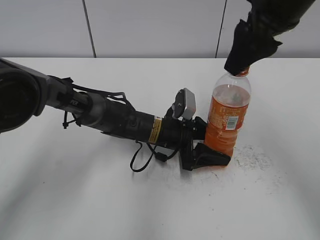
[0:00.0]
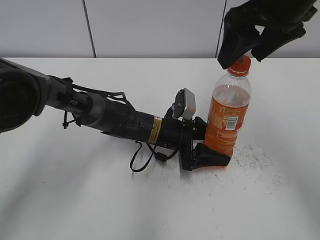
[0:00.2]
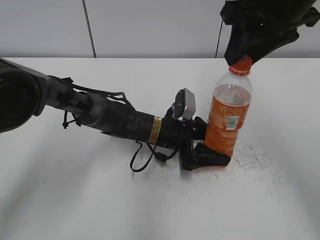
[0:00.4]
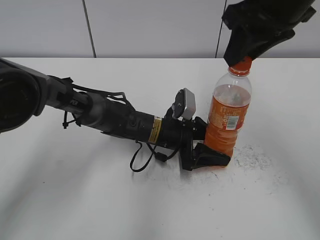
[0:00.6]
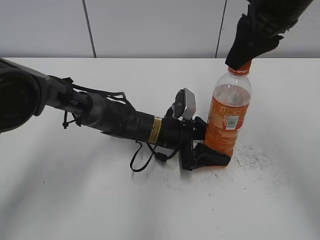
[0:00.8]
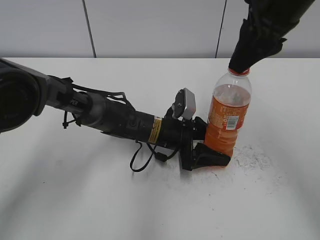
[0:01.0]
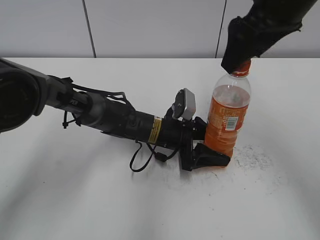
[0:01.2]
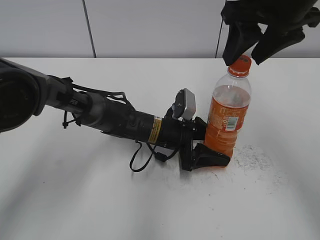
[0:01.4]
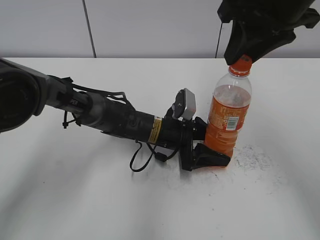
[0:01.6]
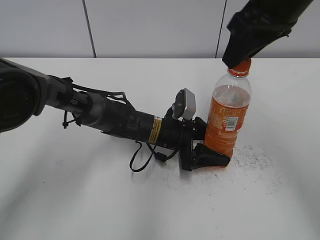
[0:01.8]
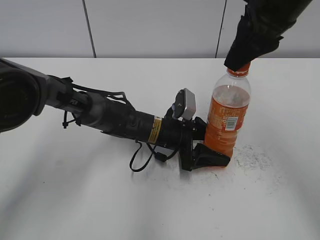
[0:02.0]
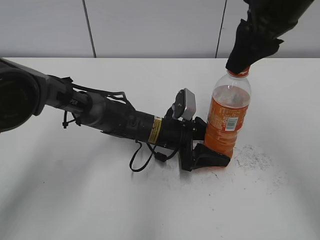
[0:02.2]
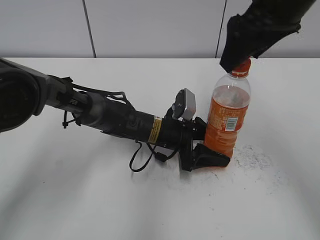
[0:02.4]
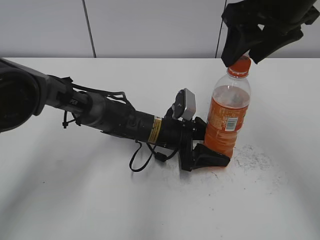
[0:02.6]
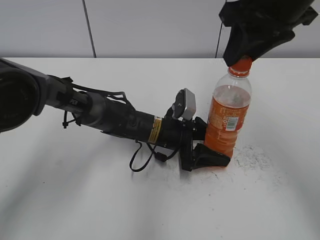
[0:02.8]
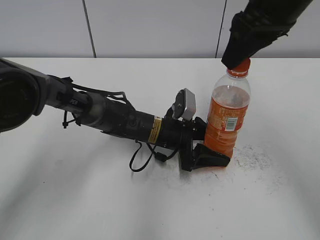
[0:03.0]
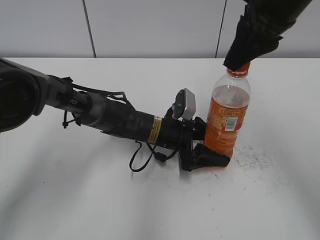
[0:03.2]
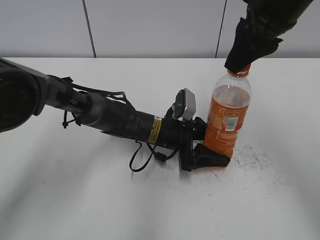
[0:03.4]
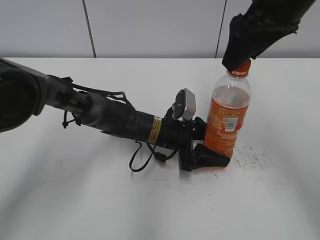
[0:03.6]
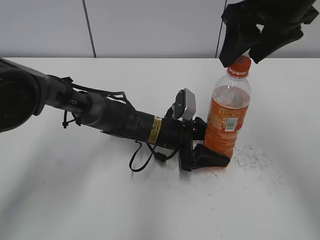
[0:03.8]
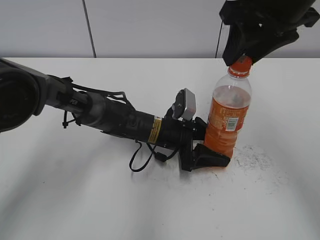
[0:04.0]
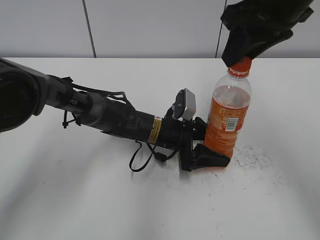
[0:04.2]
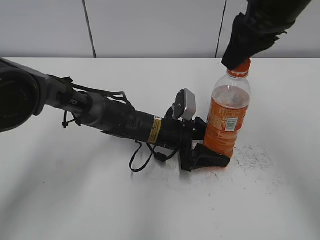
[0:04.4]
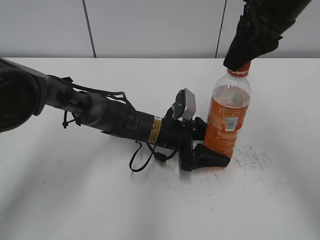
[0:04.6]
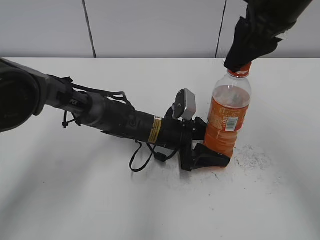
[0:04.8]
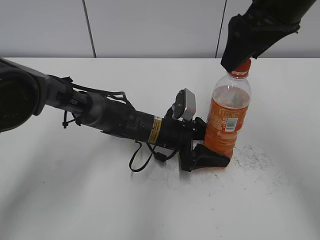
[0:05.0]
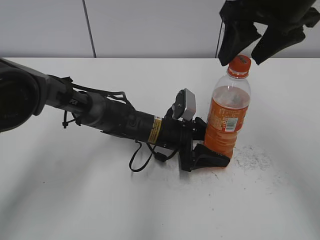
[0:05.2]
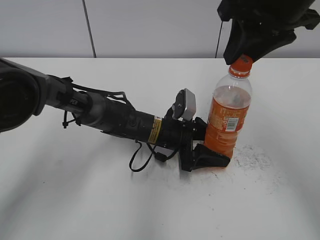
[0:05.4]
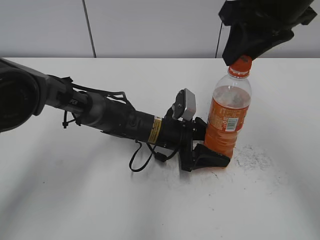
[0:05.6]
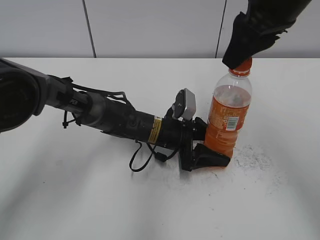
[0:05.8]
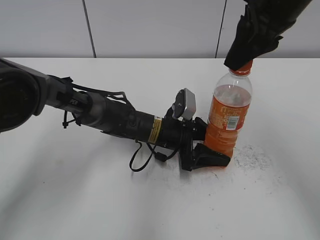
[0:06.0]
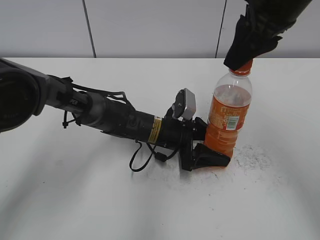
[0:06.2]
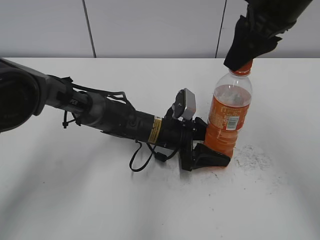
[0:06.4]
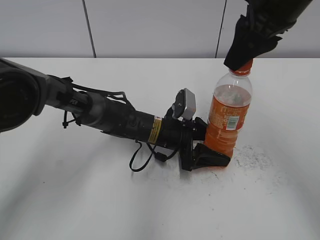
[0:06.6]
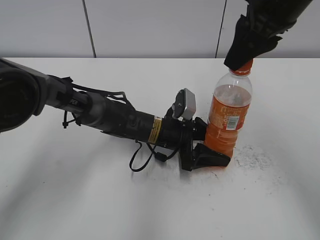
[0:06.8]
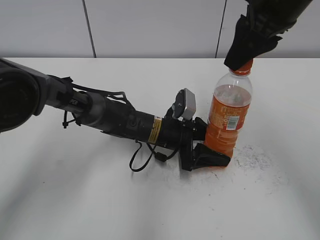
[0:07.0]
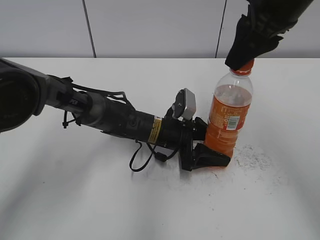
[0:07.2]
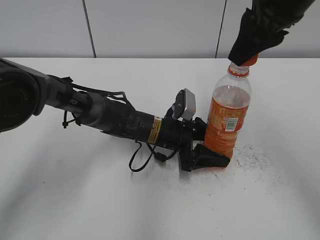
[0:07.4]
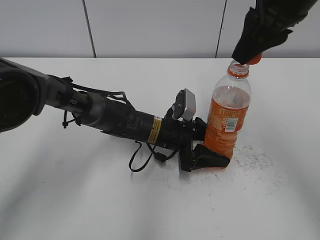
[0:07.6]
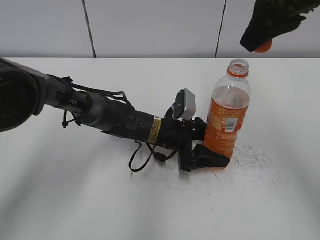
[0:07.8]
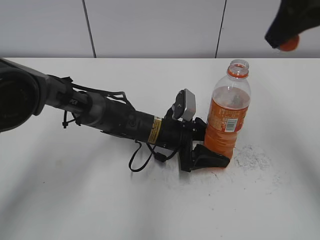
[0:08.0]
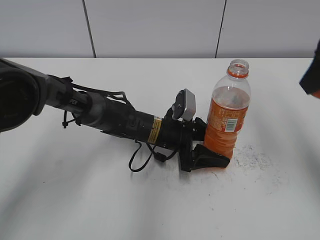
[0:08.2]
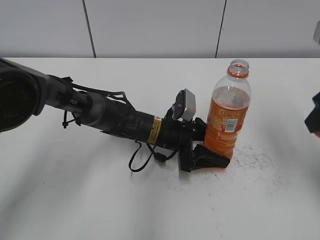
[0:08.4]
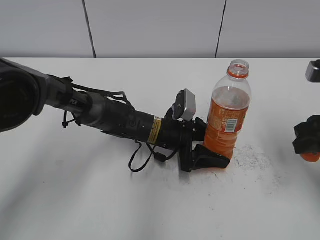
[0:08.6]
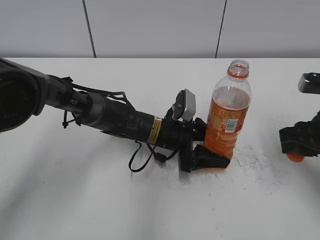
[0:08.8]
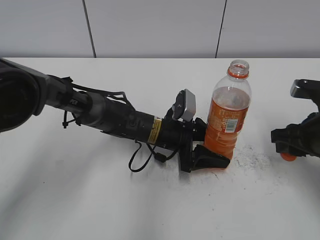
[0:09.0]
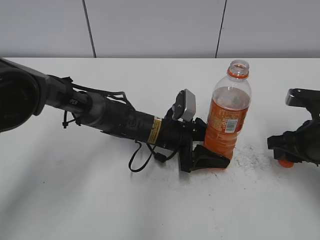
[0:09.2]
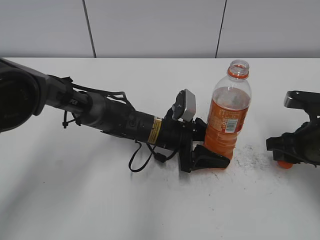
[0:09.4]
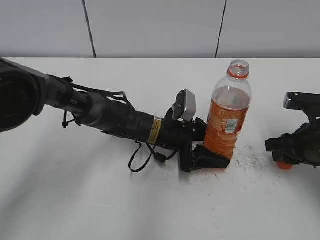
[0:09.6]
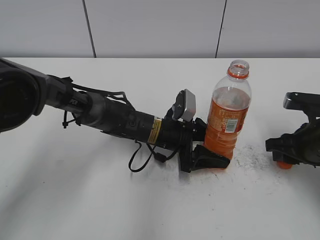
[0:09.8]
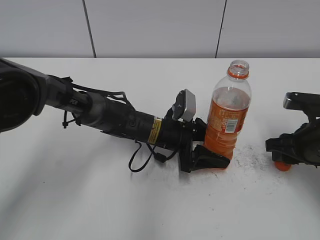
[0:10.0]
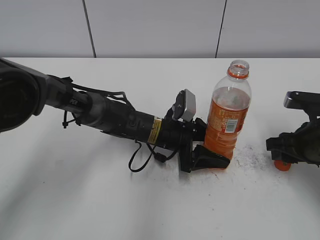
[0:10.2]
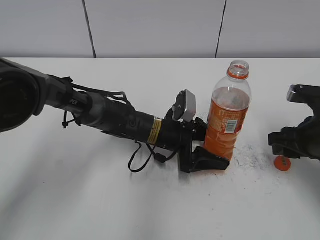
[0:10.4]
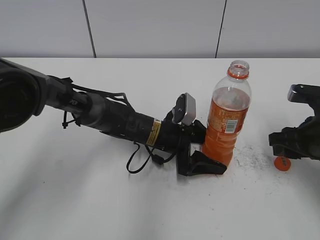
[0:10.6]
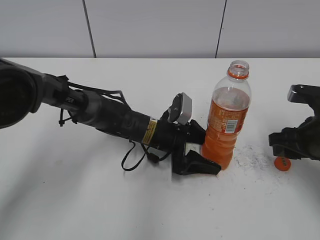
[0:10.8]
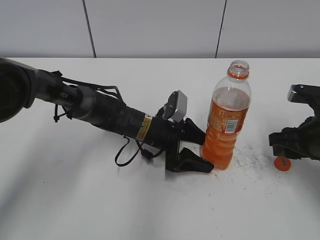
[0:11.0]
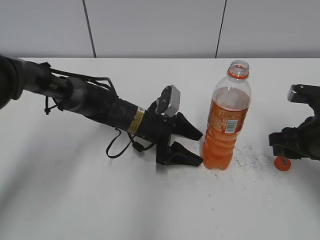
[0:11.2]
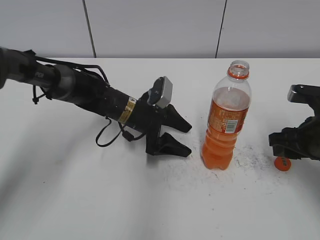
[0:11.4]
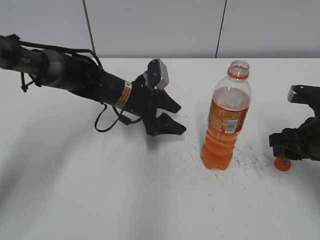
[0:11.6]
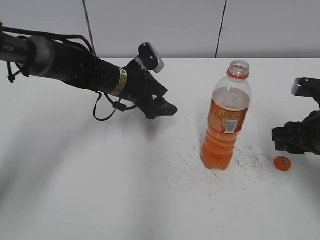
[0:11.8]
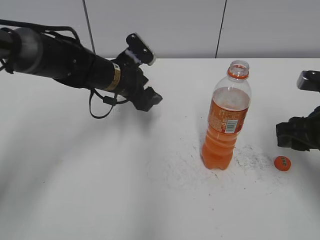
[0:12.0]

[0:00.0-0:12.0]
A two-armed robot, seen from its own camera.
Step, 0:00.0 to 0:07.6: Twist the bottle cap with the right hand.
0:00.0 to 0:01.6: The right gripper closes.
0:01.6 to 0:03.0: The right gripper opens, then closes again.
0:04.4 to 0:06.0: The right gripper opens, then closes again.
0:06.0 to 0:07.6: The grippers move only a little.
0:07.6 to 0:09.0: The right gripper is displaced downward and to the right by approximately 25 cm.
0:09.0 to 0:10.4: The grippers stay close to where they were, moving slightly.
0:10.4 to 0:12.0: The left gripper moves upward, to the left and forward, approximately 15 cm.

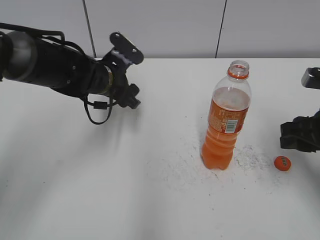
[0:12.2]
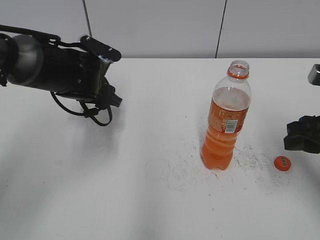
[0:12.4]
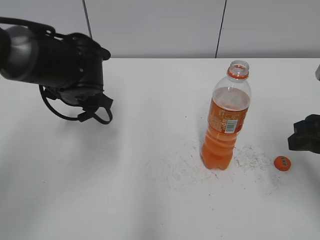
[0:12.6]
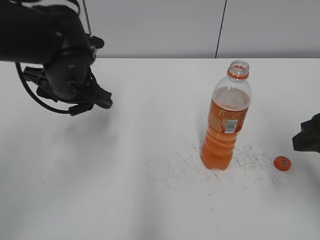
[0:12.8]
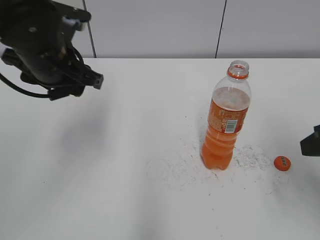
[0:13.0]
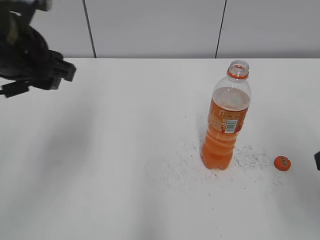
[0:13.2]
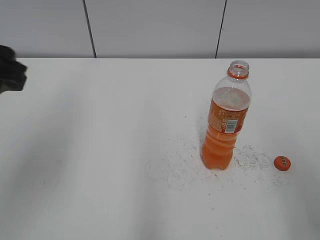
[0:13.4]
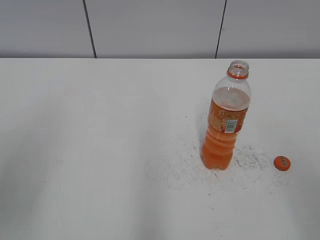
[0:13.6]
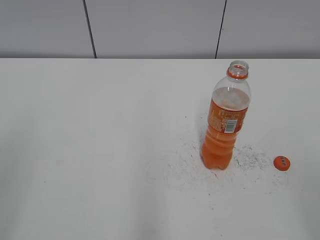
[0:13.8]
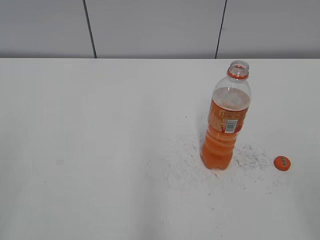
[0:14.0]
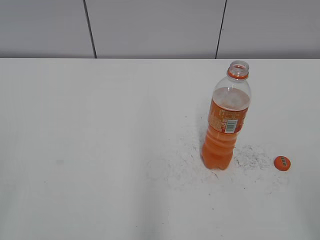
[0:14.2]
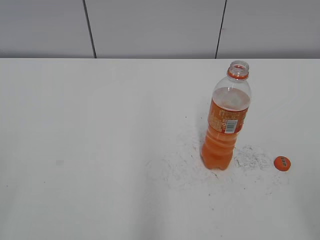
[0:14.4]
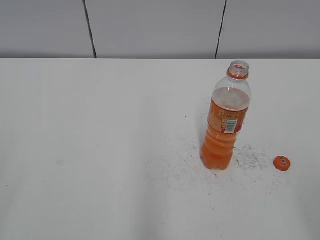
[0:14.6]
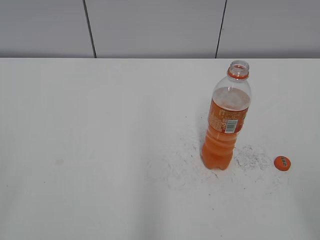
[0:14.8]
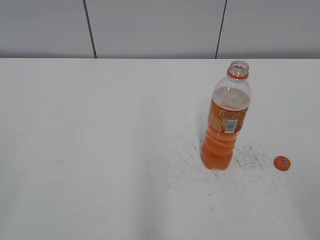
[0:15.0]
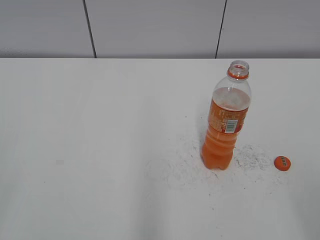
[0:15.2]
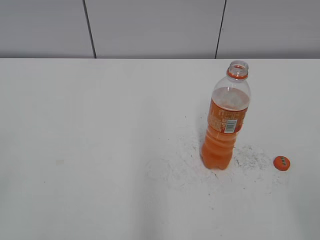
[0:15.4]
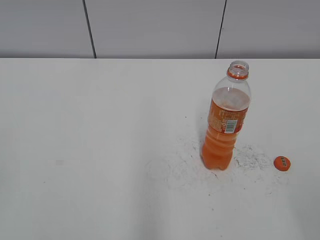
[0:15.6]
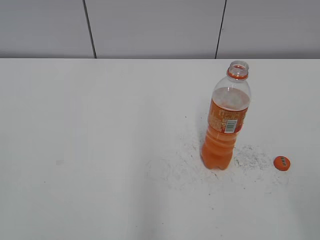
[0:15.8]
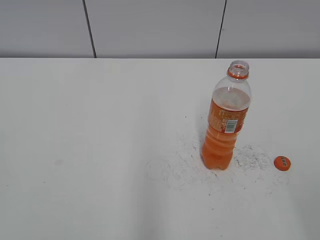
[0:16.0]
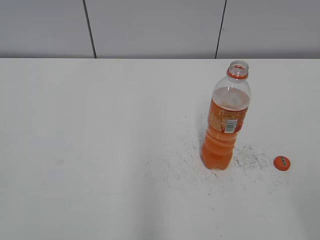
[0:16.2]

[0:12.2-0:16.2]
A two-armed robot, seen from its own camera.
0:12.2 to 0:13.6: The right gripper travels backward and upward by some 20 cm, while the left gripper is displaced backward, upward and to the left by some 35 cm, and closes.
0:13.6 to 0:14.8: The left gripper is displaced backward and to the left by approximately 15 cm.

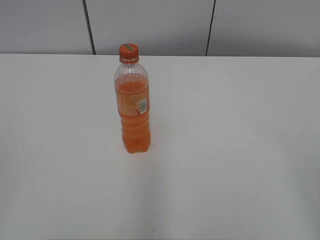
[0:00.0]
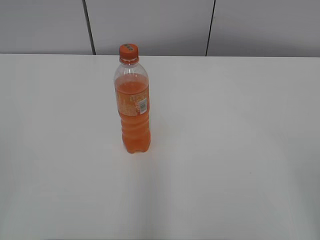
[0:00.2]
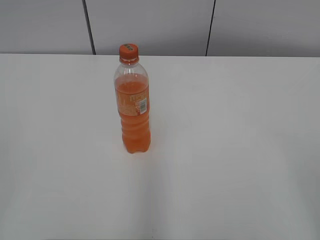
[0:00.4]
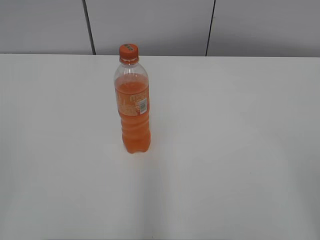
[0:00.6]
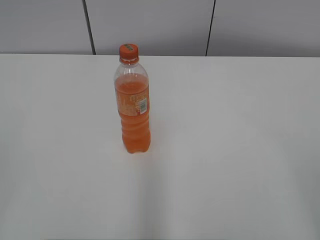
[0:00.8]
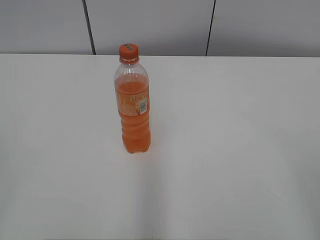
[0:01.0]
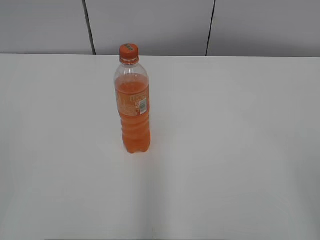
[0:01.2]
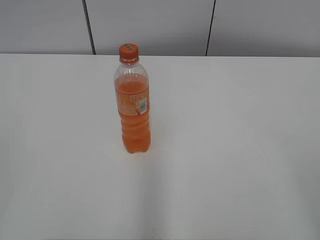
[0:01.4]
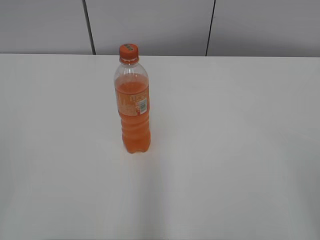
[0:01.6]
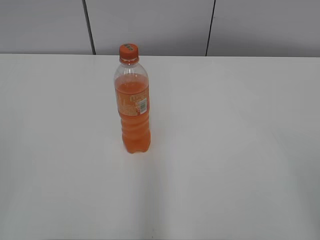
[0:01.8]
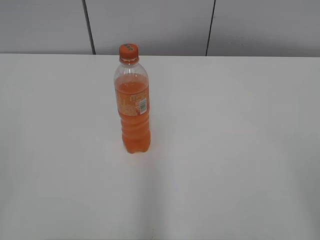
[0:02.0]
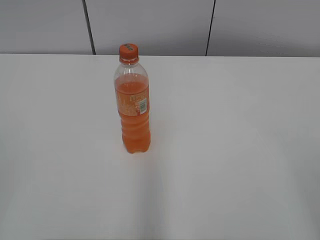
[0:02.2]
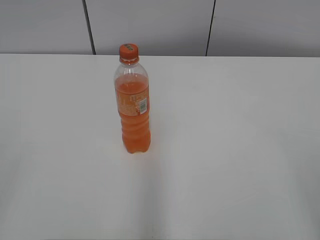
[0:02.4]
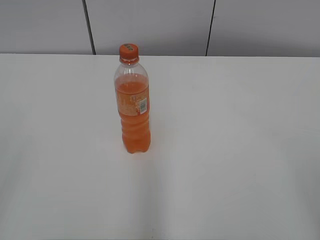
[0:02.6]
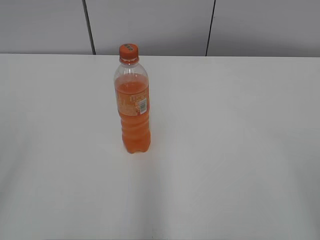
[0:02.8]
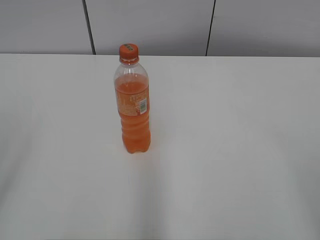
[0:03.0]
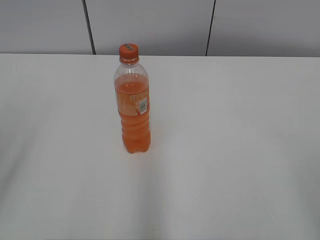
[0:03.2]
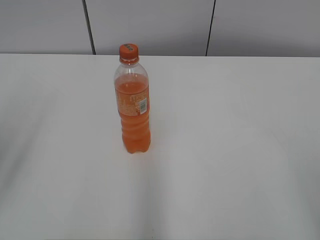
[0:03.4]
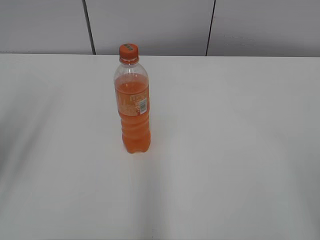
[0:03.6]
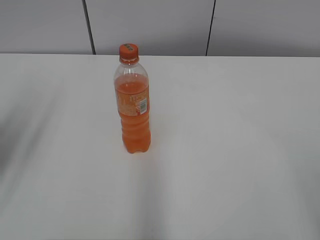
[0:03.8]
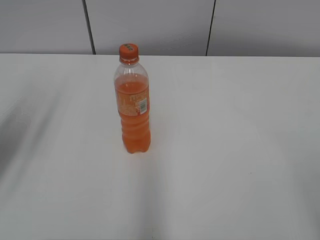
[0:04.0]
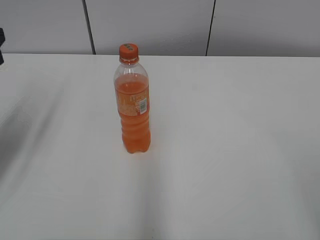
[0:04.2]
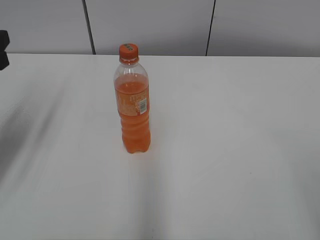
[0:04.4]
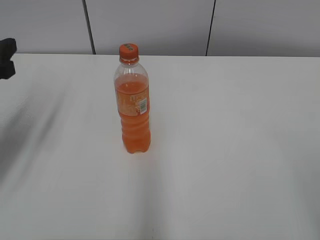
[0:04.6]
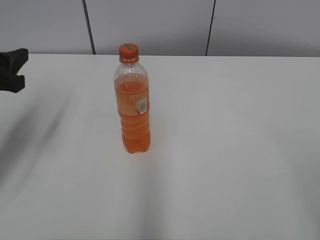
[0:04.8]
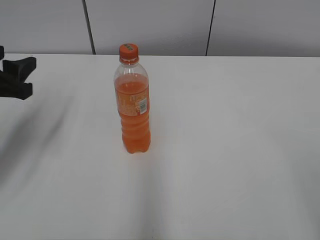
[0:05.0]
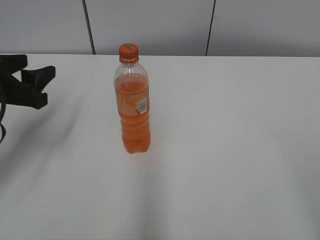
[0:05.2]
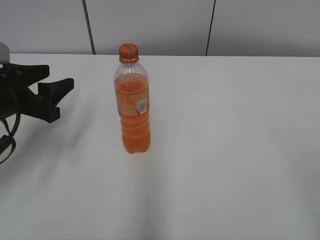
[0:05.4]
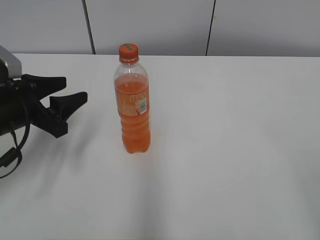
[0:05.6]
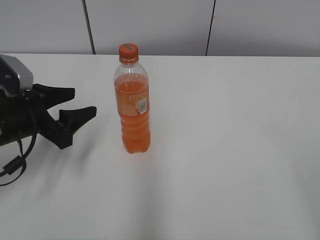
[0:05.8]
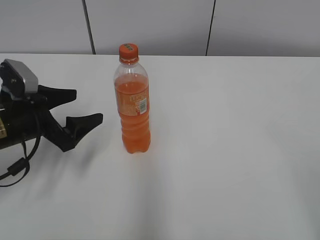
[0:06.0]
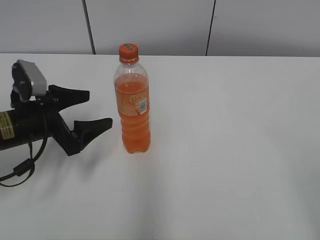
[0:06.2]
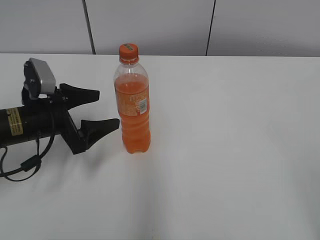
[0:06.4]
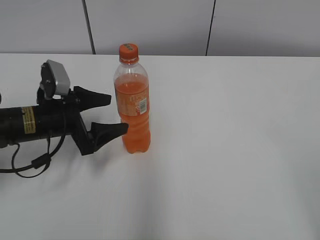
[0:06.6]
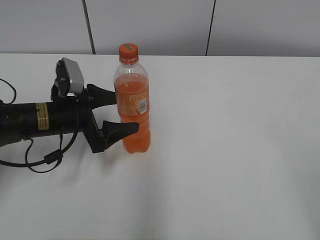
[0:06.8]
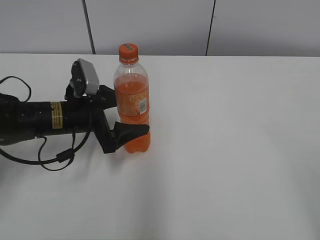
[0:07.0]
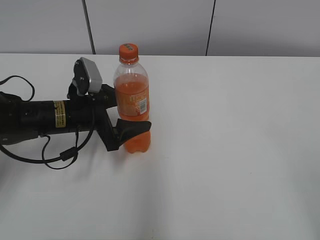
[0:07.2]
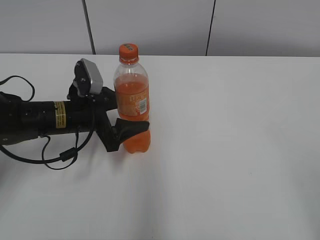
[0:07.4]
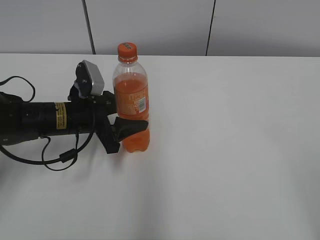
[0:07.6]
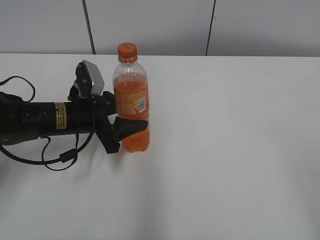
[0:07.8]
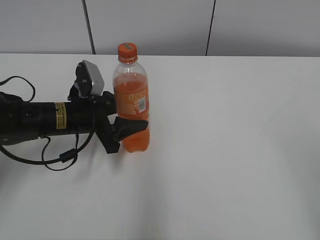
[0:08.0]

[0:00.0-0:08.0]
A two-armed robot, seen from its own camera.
Step, 0:00.0 to 0:07.6: Grasp the bottle and move it to the center of the table with the left gripper.
0:03.2 to 0:04.8: The left gripper moves forward and downward, approximately 20 cm.
0:04.8 to 0:06.4: The left gripper goes about 15 cm downward and to the right, and opens its fingers.
0:06.4 to 0:08.0: The left gripper is displaced to the right by some 5 cm, and closes its fingers. Meanwhile the right gripper shifts by about 5 cm.
